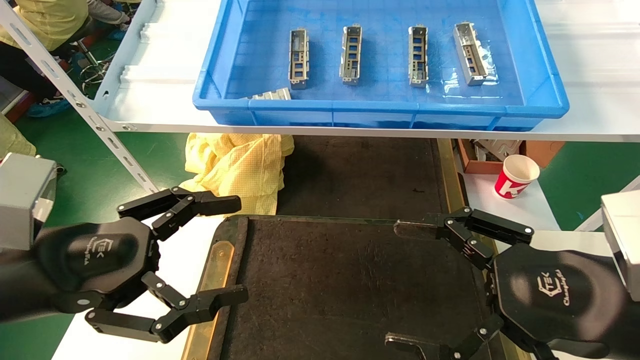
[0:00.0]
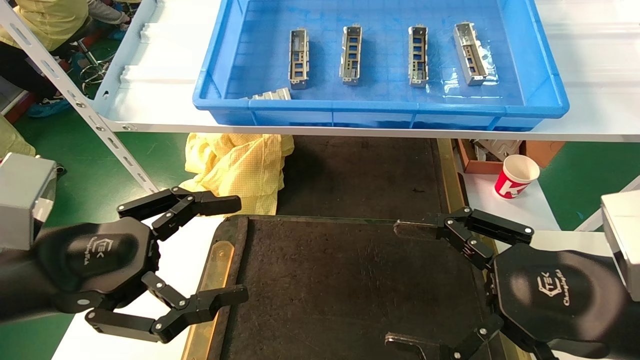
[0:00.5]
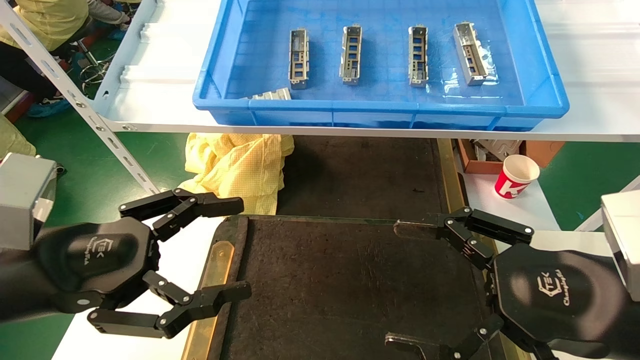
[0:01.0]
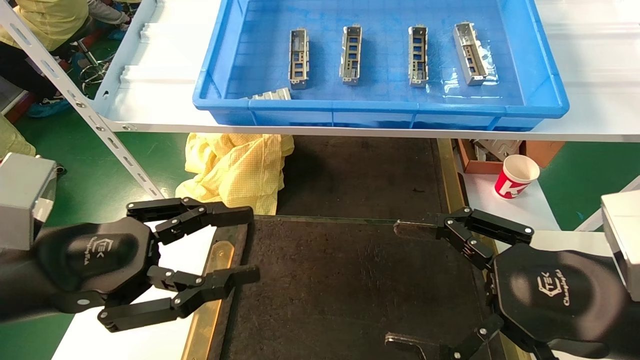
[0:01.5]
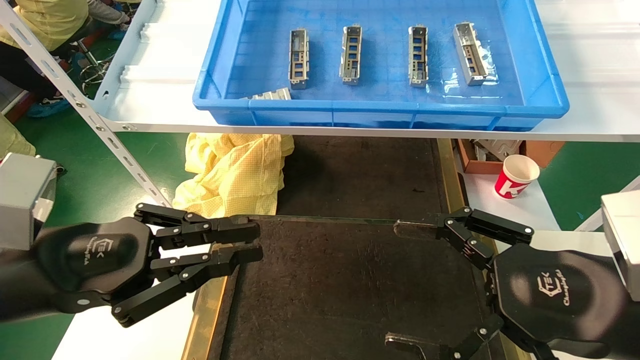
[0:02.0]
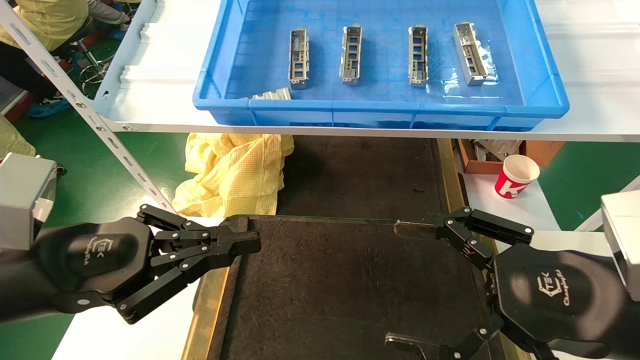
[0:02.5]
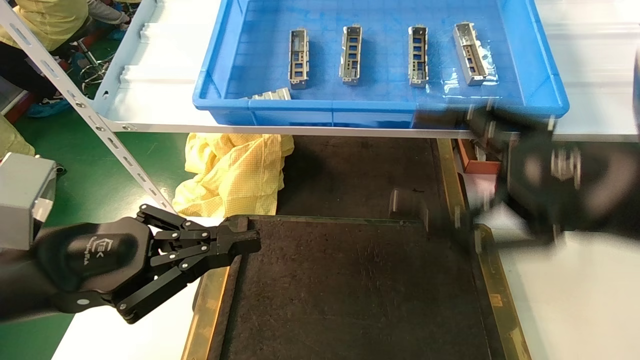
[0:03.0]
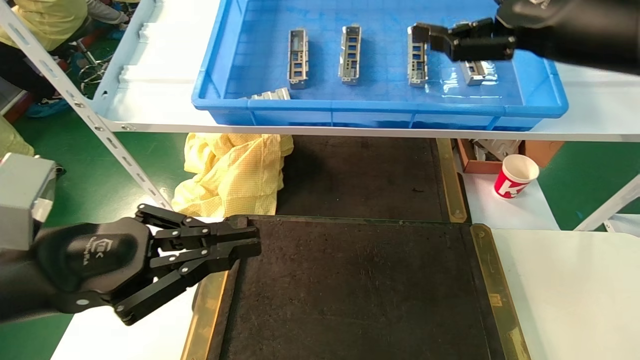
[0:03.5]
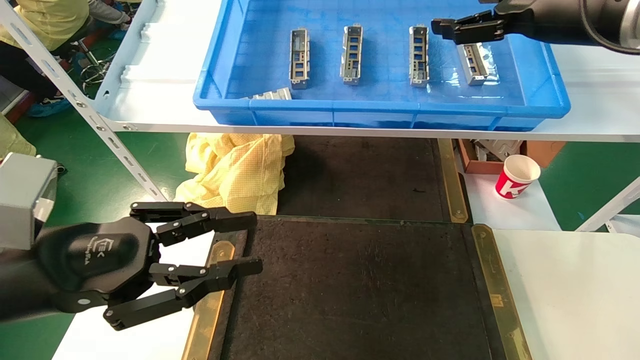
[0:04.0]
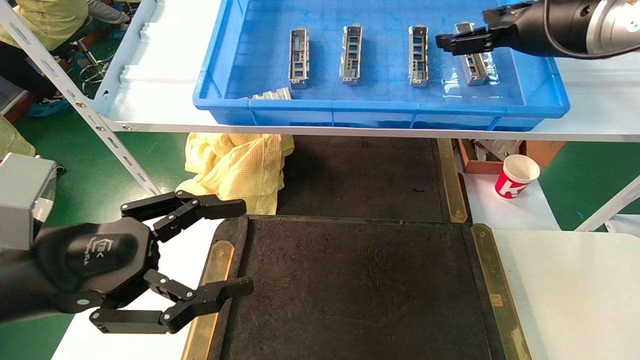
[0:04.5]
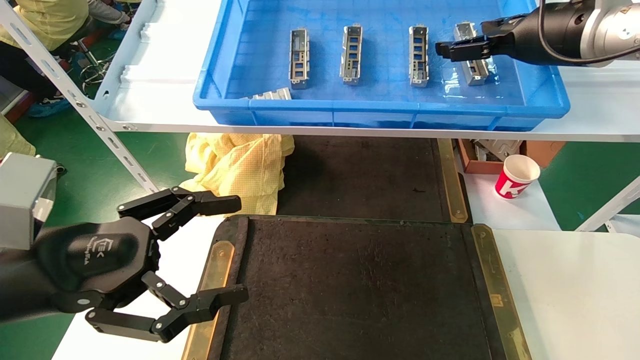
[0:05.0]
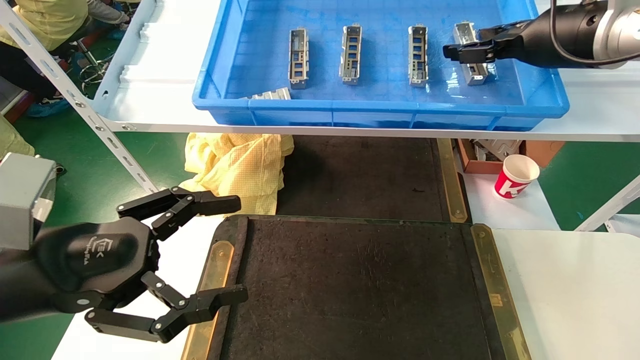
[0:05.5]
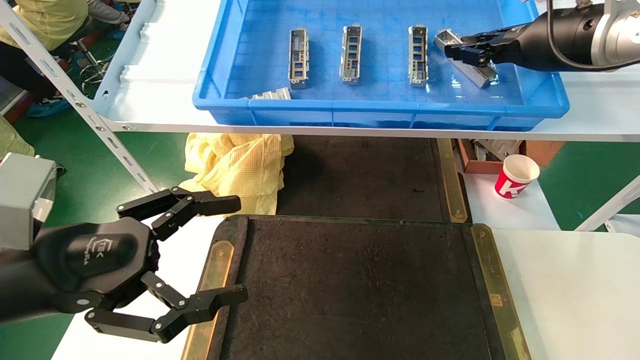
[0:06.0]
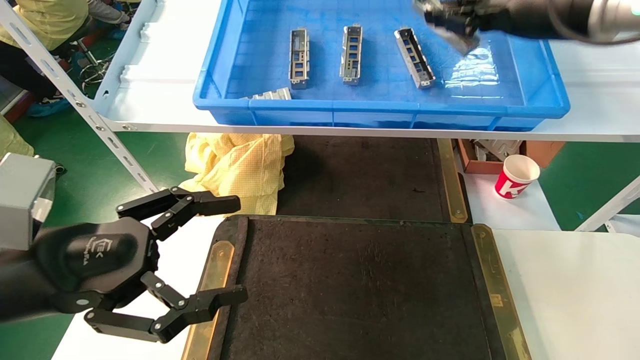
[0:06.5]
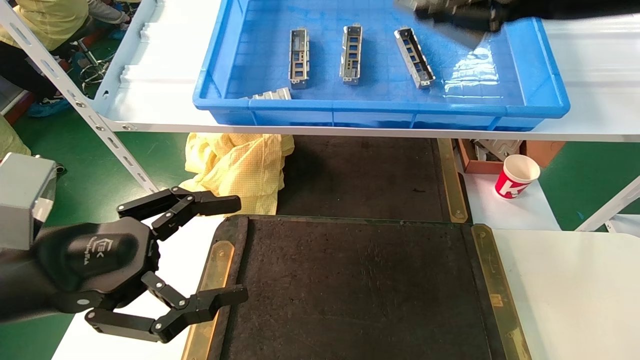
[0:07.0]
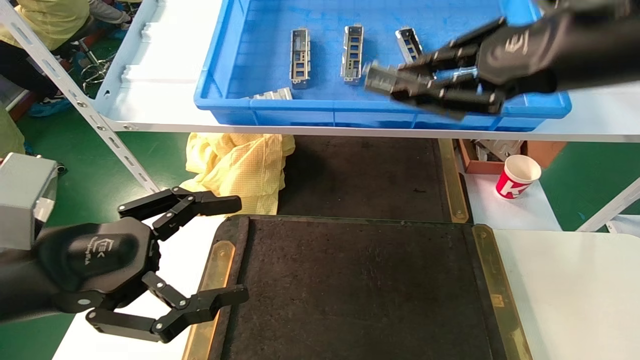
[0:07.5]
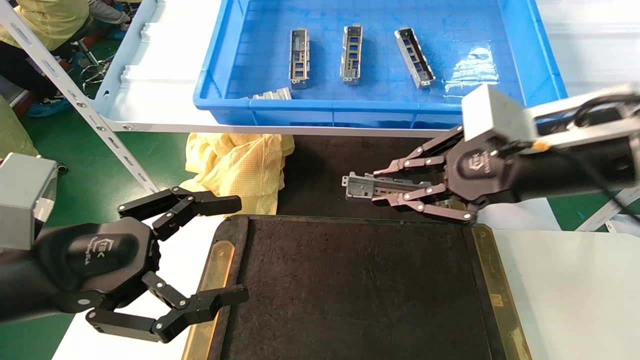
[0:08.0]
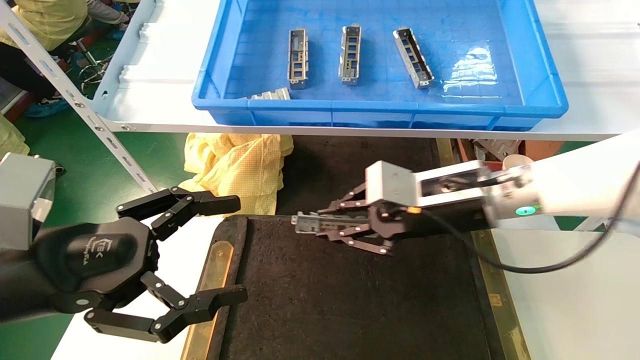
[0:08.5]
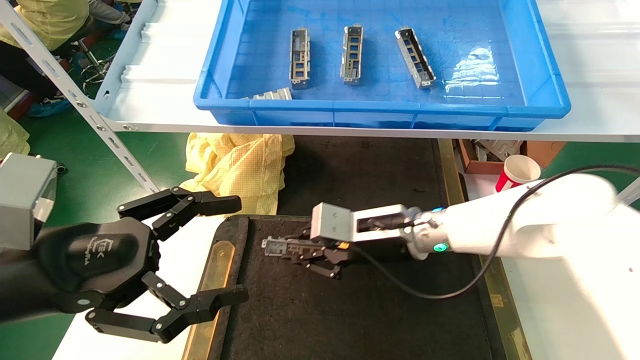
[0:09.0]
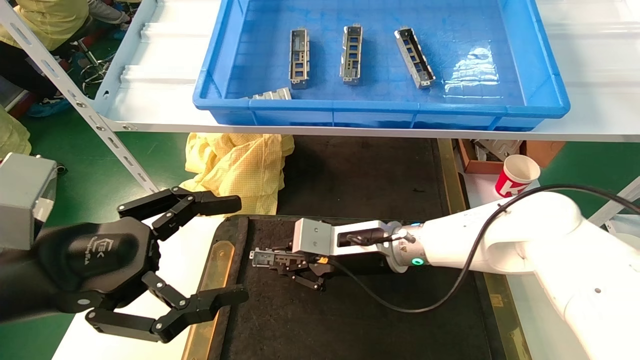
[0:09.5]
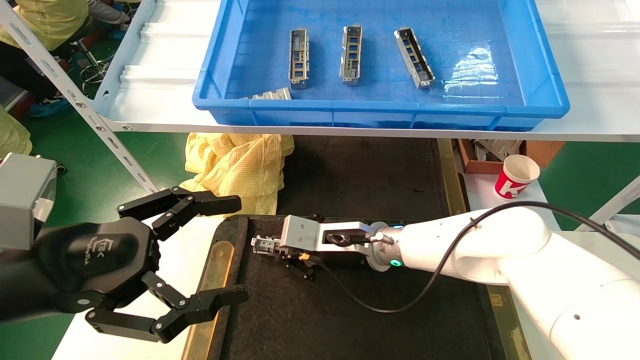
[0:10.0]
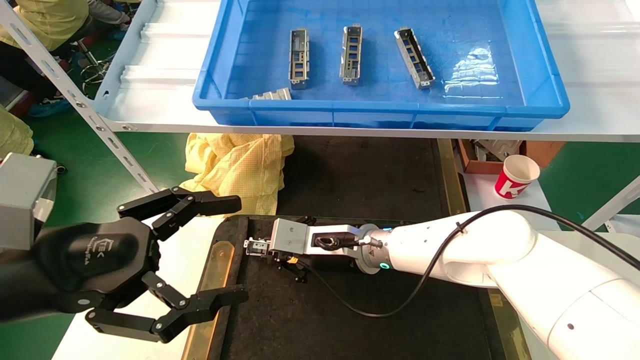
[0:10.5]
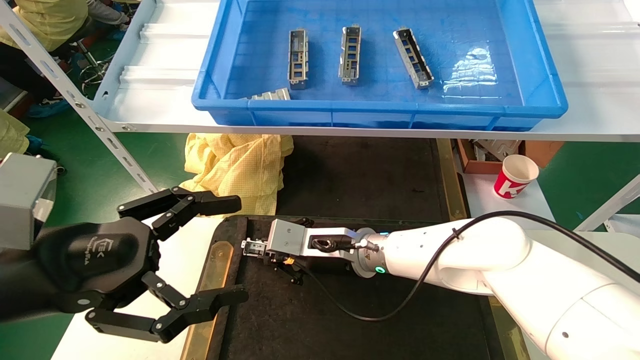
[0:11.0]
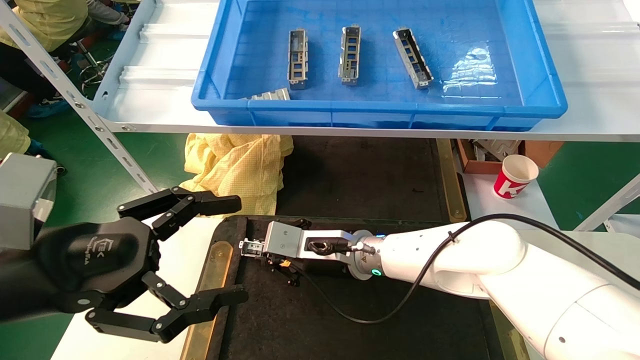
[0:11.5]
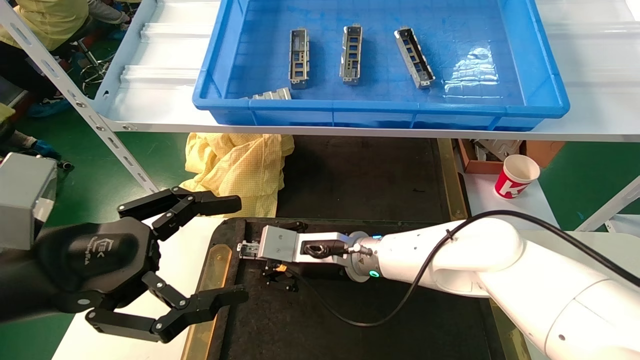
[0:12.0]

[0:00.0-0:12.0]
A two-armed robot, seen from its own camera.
Task of the whole recording: grasp the part and place them on the black container.
Step, 0:03.5 to 0:07.0: Pick up and lift the front USB bracket from the feeding area.
0:00.0 to 0:02.0: The left gripper closes up.
0:02.0 to 0:04.0: The right gripper travels upward and forward by some 30 cm.
0:04.0 to 0:06.0: The left gripper opens, while the right gripper closes.
0:06.0 to 0:08.0: The right gripper goes roughly 15 cm backward, downward and to the left.
0:08.0 to 0:10.0: The right gripper shifts some 30 cm to the left, downward and forward.
0:10.0 to 0:12.0: The grippers move only a little.

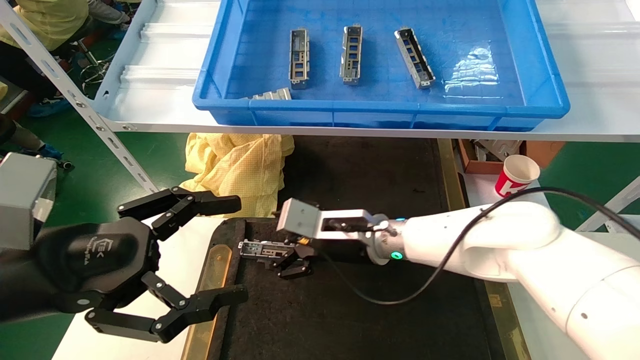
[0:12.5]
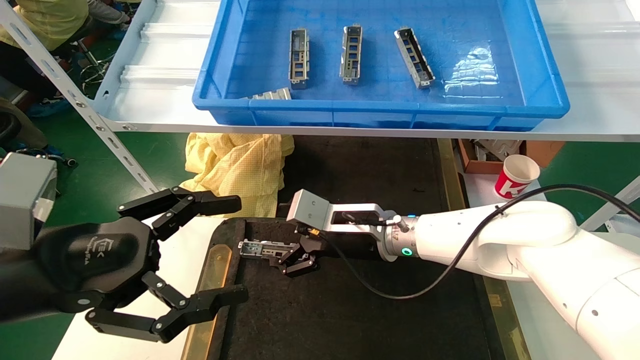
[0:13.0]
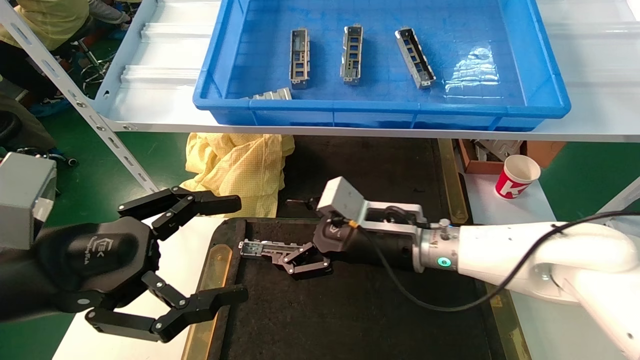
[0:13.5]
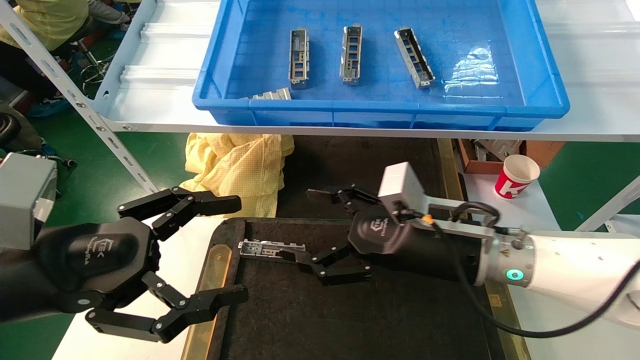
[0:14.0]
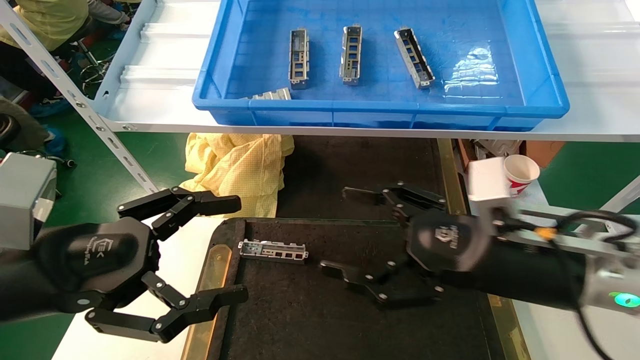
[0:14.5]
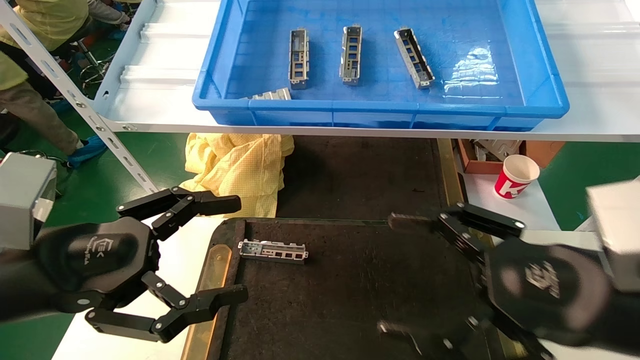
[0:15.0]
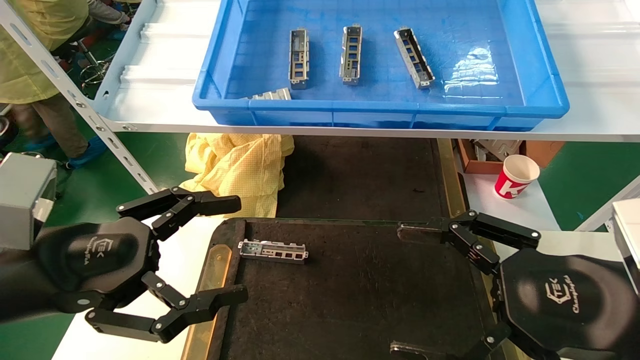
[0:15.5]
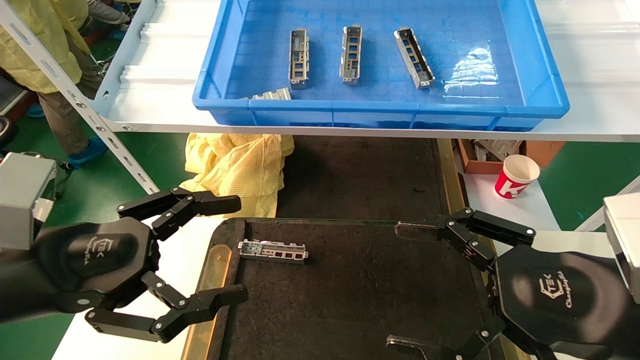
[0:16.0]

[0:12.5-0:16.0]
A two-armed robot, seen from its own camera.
Task of the whole recording: grasp the part and place them on the black container.
0:12.5 to 0:14.5: The right gripper is displaced to the right and backward by about 20 cm.
0:14.5 to 0:16.0: The right gripper goes roughly 10 cm backward and to the right.
